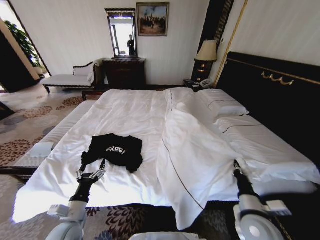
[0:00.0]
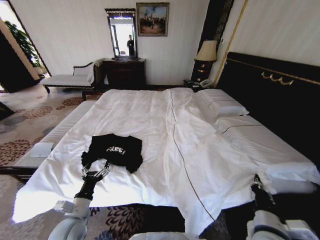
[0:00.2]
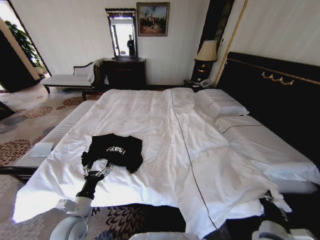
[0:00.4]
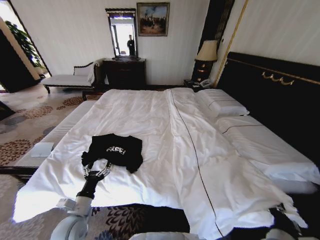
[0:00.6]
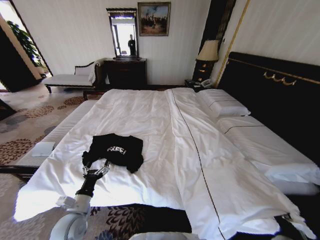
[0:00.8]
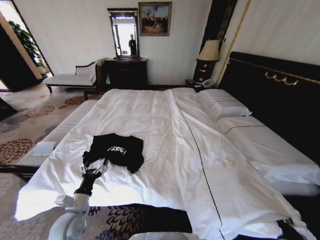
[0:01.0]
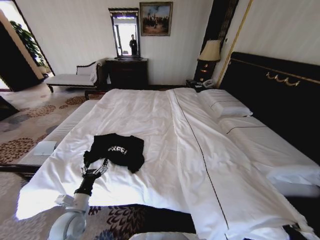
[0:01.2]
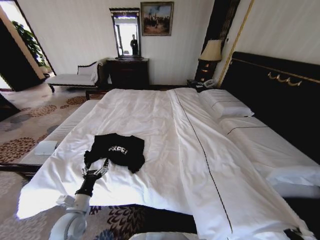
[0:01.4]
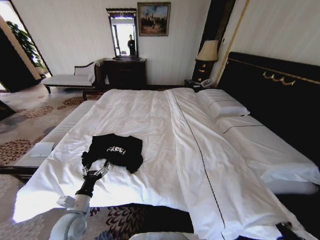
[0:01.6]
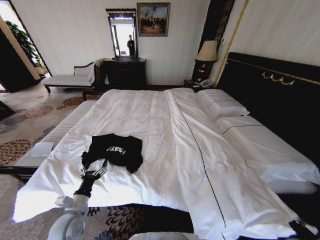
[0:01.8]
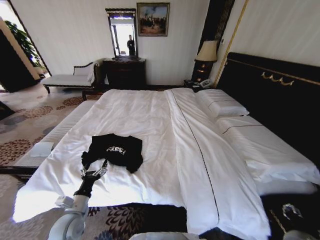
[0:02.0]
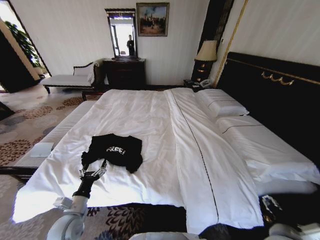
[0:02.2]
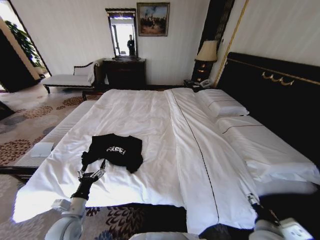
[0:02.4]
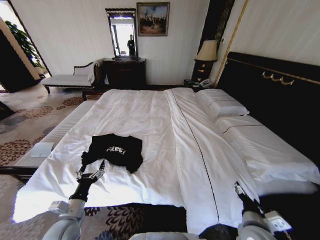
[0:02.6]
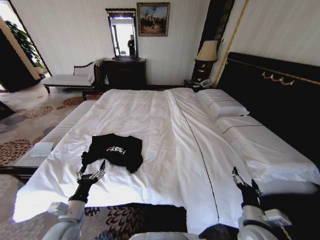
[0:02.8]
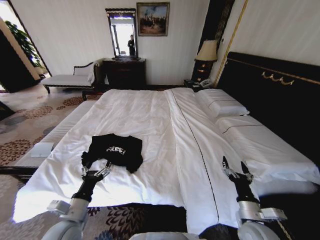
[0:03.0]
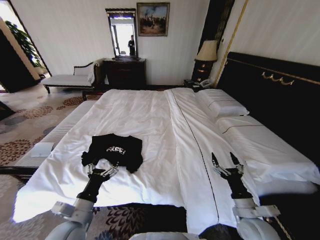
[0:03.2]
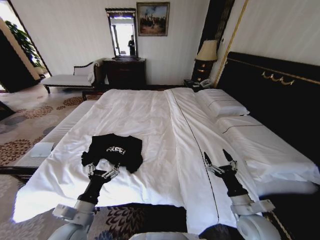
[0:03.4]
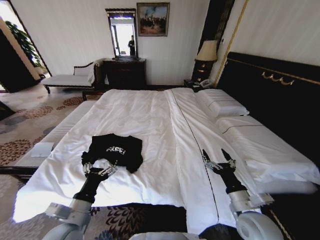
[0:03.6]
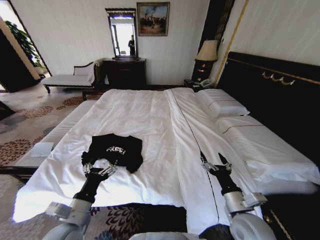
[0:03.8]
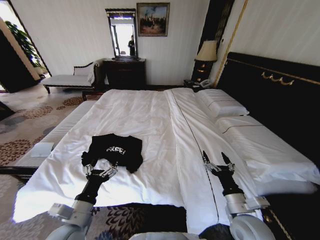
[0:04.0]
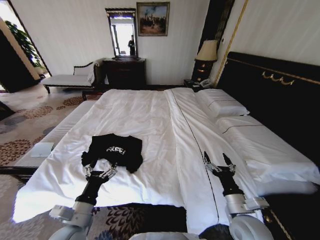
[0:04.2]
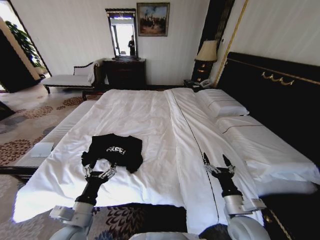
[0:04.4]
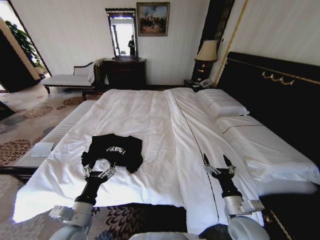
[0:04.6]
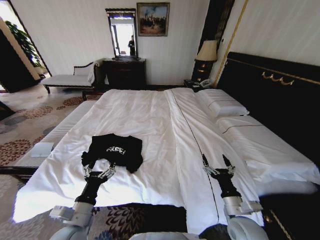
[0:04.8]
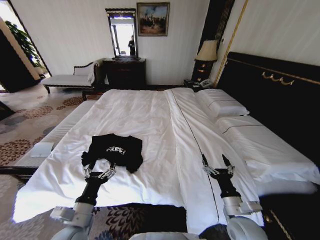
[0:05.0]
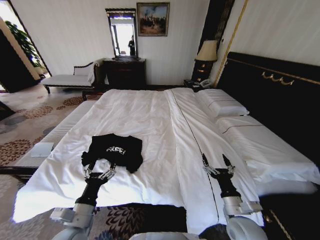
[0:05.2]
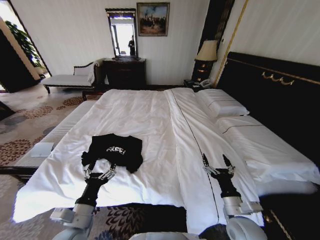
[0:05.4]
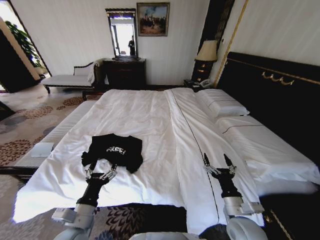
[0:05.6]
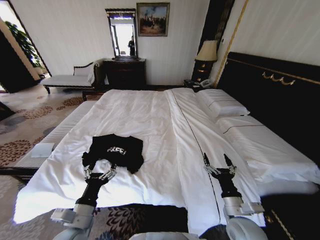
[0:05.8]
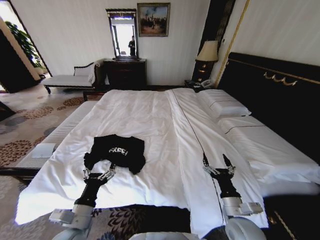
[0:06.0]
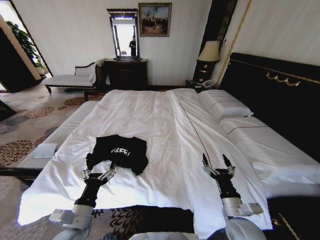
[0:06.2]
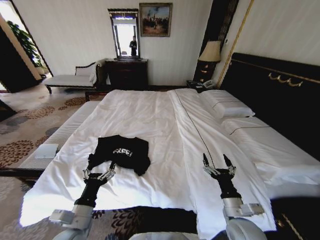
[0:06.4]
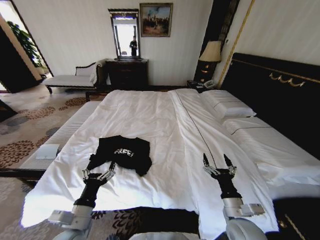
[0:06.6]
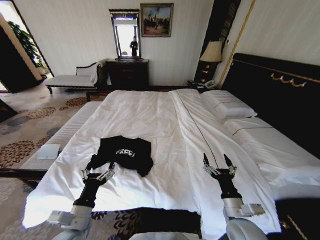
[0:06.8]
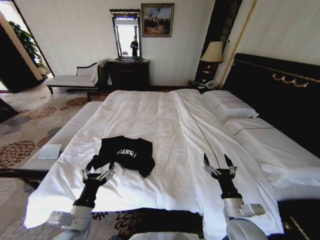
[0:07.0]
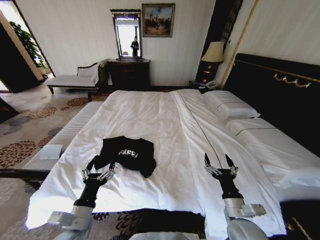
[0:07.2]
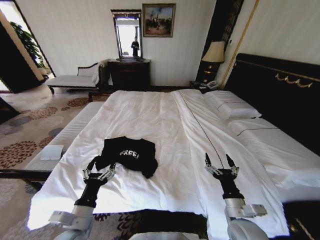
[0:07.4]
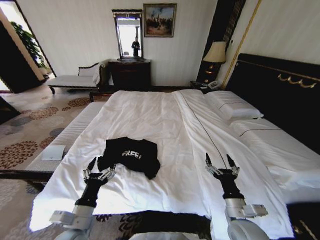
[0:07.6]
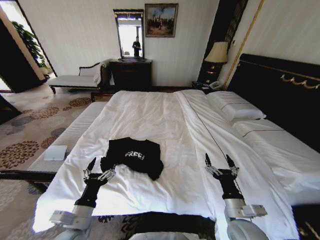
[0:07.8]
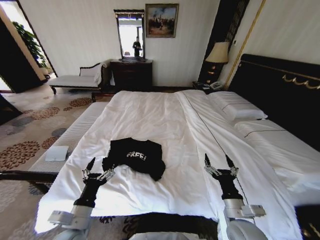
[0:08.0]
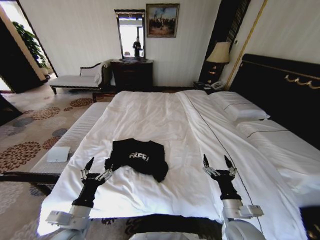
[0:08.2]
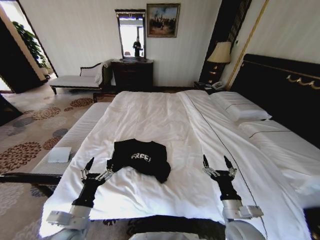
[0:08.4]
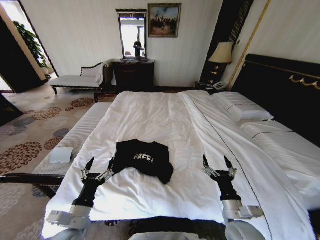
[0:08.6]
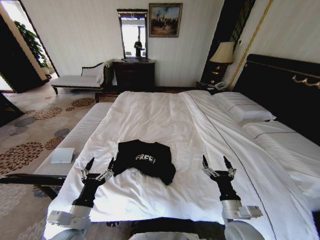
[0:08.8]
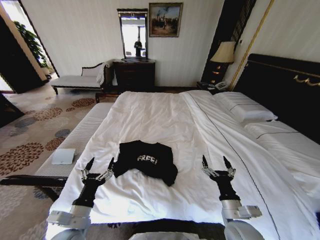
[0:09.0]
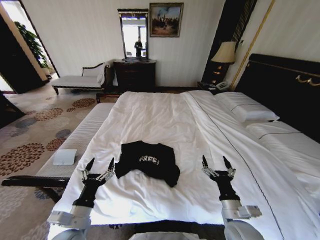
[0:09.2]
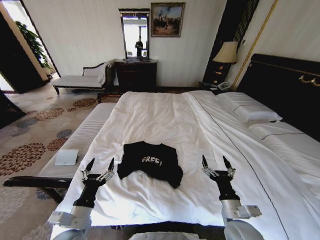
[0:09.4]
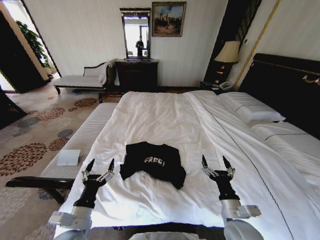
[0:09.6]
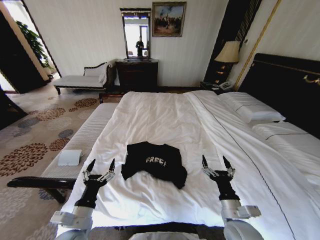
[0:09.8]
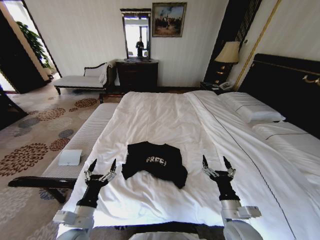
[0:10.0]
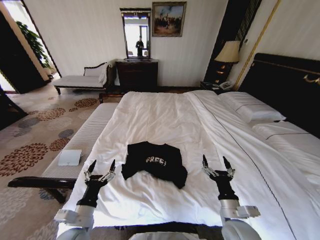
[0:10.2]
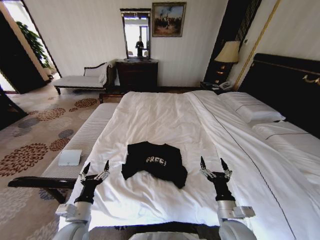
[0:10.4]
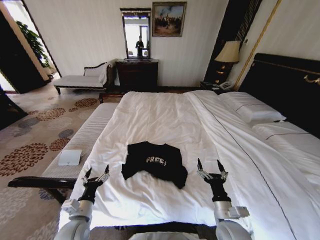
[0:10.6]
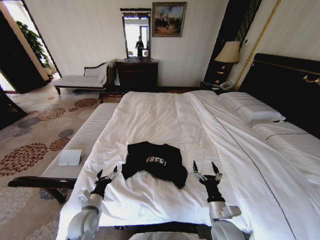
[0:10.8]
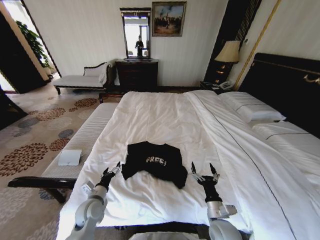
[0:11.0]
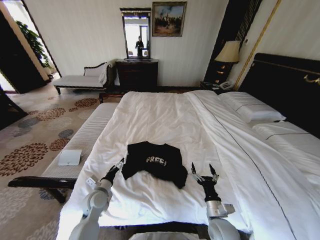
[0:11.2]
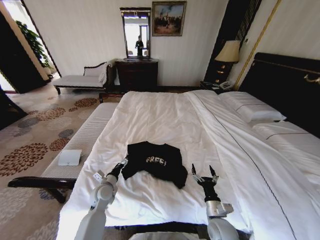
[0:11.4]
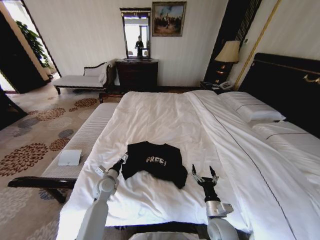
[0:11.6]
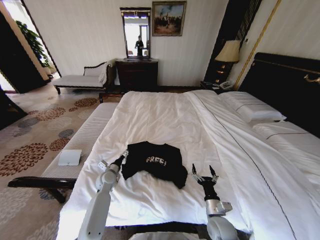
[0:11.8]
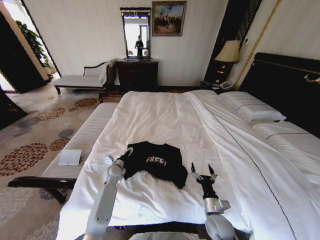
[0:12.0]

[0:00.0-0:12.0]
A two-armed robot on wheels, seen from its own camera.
Task of the whole recording: Fold the clothes on the bed.
0:00.0 to 0:01.6: The right gripper shifts roughly 10 cm backward, to the right and downward.
0:01.6 to 0:03.0: The right gripper shifts approximately 5 cm forward, travels upward and back again, about 10 cm each way, and opens its fingers. The left gripper moves upward, some 5 cm.
0:03.0 to 0:04.4: The right gripper moves roughly 5 cm.
0:04.4 to 0:06.0: There are only small adjustments of the grippers.
0:10.4 to 0:12.0: The right gripper goes some 10 cm downward, while the left gripper goes roughly 25 cm forward.

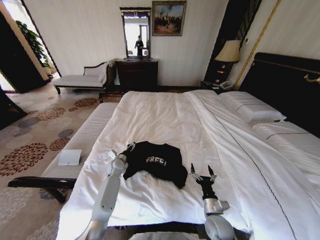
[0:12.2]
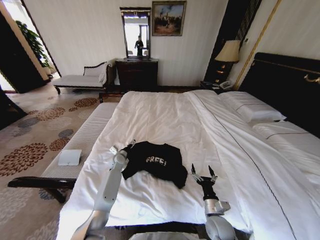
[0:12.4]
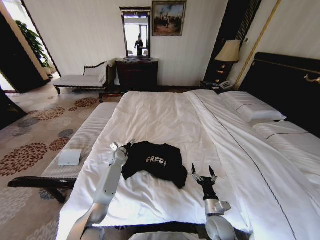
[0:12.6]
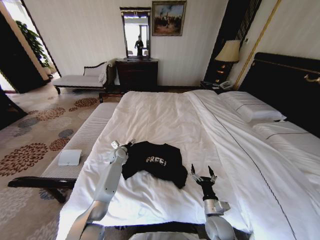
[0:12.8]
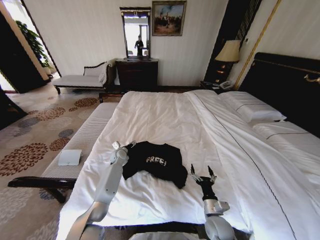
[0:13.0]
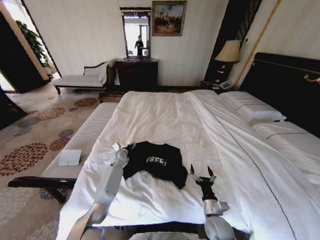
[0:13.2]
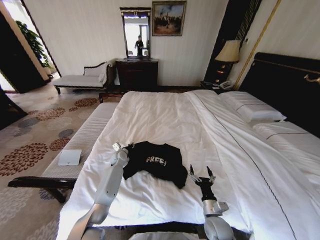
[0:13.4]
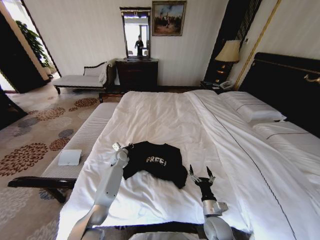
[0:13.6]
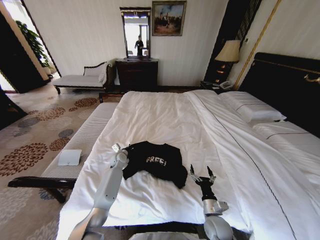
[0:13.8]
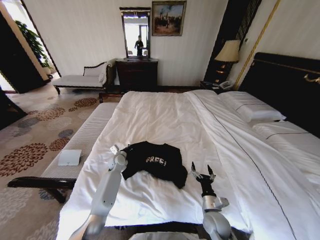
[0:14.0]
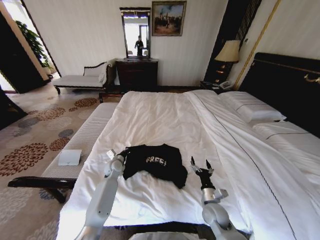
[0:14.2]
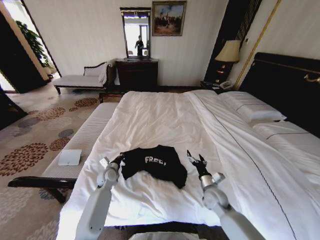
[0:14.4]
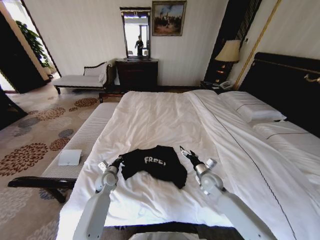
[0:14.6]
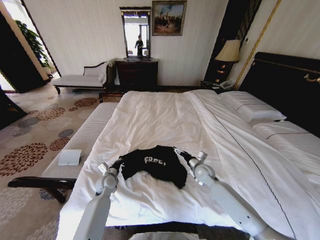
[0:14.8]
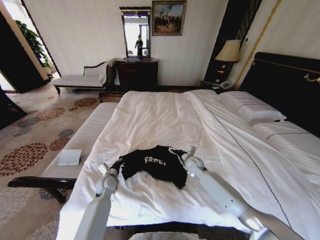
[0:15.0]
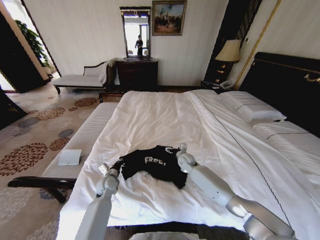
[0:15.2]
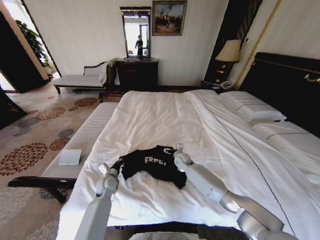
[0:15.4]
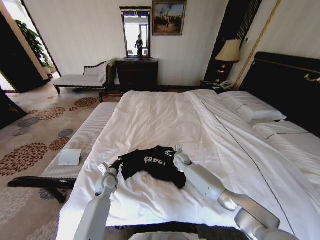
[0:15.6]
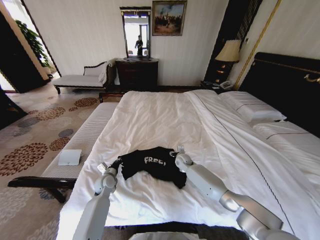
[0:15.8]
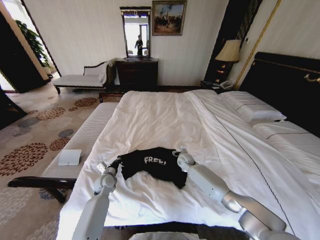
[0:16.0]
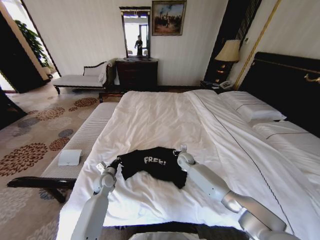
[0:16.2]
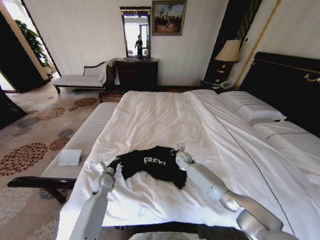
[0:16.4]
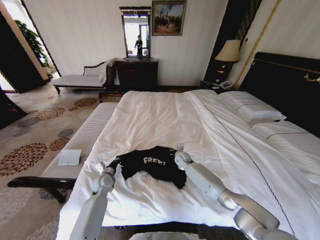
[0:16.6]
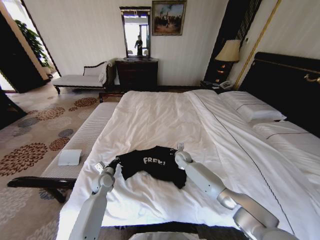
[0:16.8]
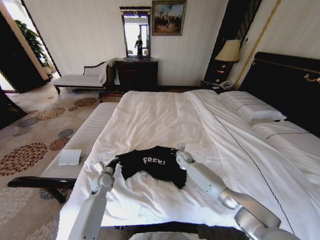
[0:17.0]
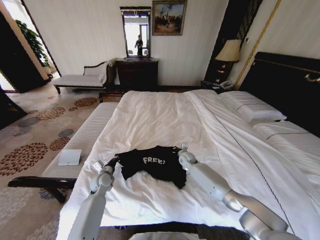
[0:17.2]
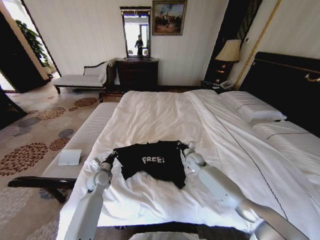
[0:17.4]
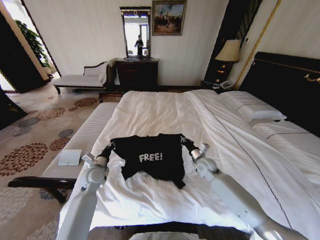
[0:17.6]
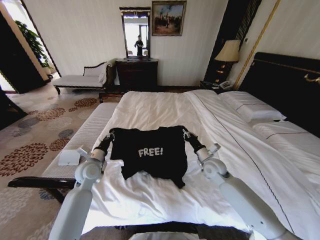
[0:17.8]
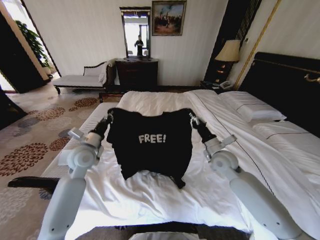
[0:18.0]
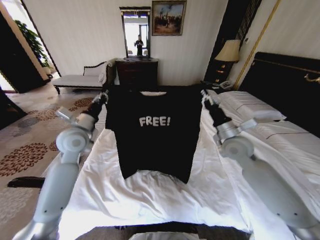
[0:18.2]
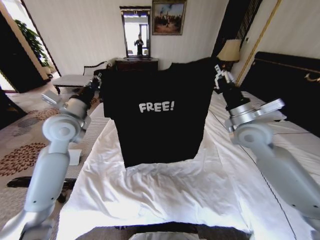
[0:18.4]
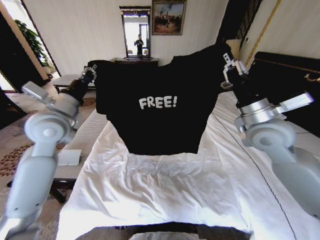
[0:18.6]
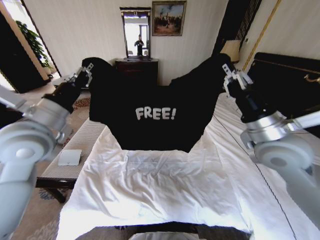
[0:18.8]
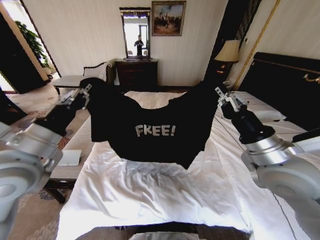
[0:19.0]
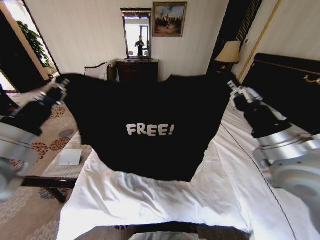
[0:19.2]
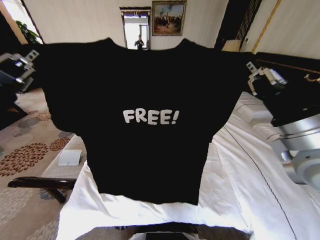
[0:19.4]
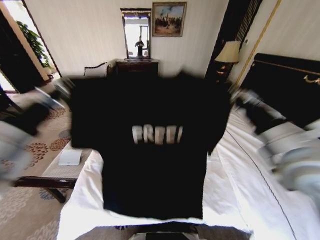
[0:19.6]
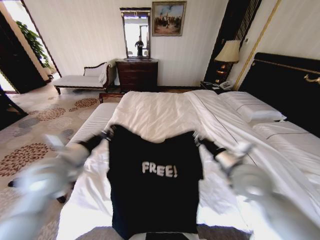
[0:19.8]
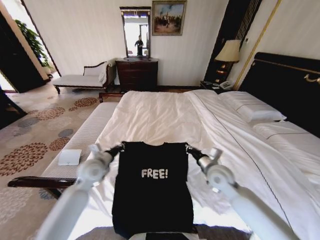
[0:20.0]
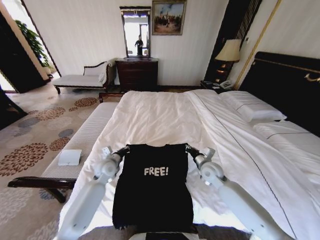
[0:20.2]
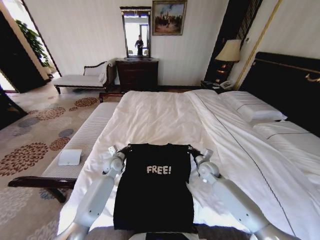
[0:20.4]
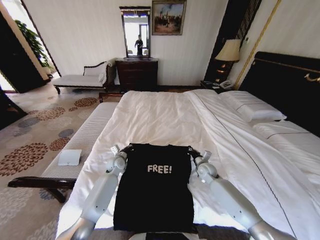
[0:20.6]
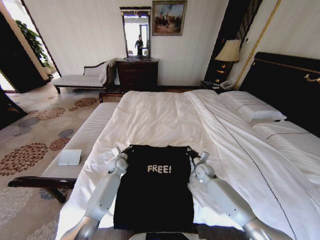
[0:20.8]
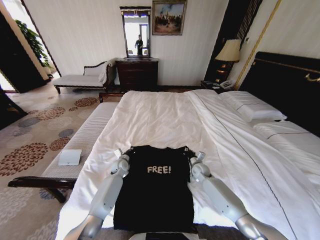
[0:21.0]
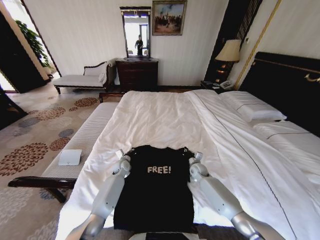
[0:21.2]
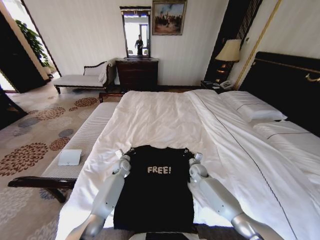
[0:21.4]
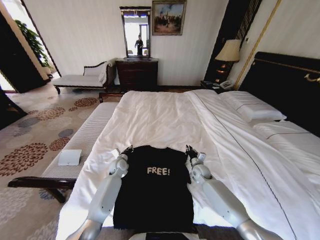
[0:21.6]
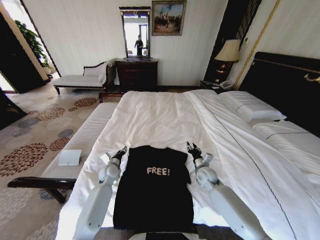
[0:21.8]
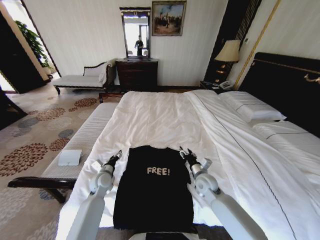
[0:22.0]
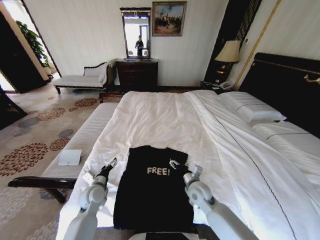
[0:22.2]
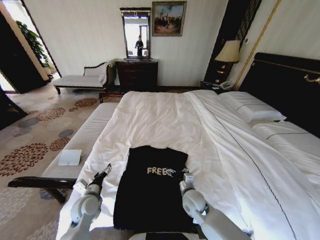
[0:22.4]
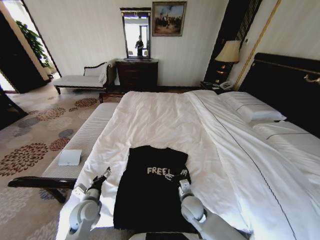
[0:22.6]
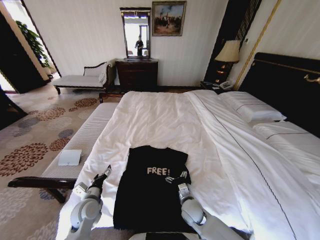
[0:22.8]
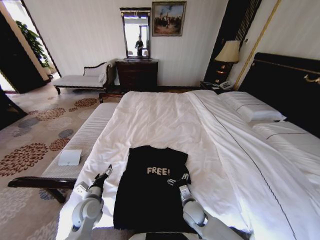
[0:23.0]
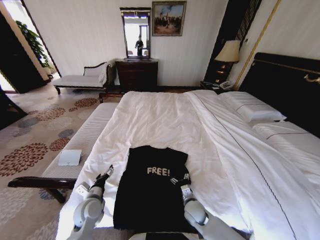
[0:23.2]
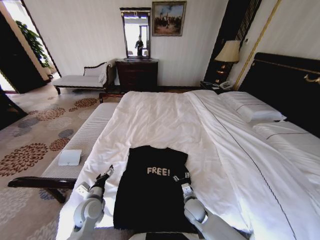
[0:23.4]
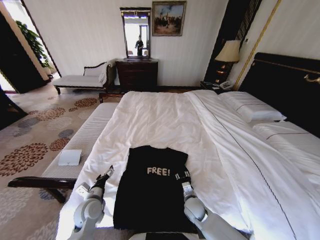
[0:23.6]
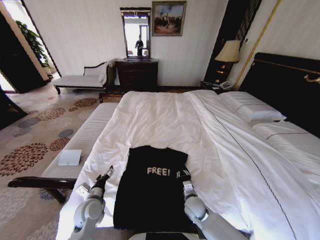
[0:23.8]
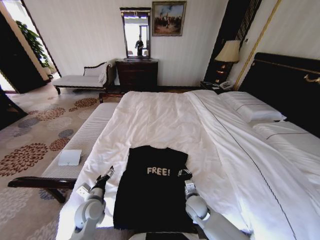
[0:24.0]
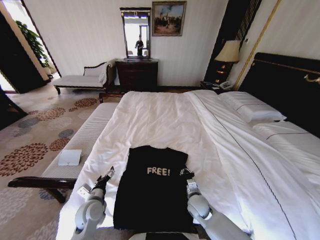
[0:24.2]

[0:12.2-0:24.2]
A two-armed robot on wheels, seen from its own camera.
Task of the whole recording: Fold the clothes on the bed.
0:12.2 to 0:13.8: The left gripper closes.
0:13.8 to 0:15.2: The left gripper is displaced backward by about 15 cm. The right gripper heads forward, covering roughly 30 cm.
0:15.2 to 0:16.6: The right gripper closes up.
0:16.6 to 0:18.2: The left gripper heads upward, covering about 30 cm; the right gripper travels upward, to the right and backward by approximately 30 cm.
0:18.2 to 0:19.8: Both grippers travel together backward, roughly 10 cm.
0:19.8 to 0:21.2: The grippers both shift downward and forward by roughly 35 cm.
0:21.2 to 0:22.6: The left gripper heads backward, covering about 25 cm, and opens its fingers. The right gripper is displaced backward and to the left by about 20 cm, and opens.
0:22.6 to 0:24.2: The right gripper closes up.
